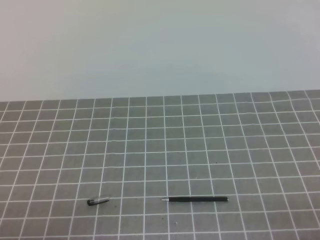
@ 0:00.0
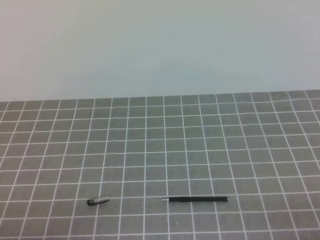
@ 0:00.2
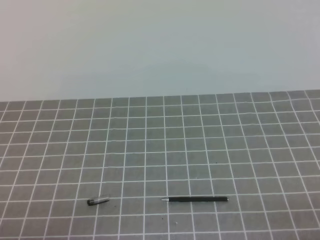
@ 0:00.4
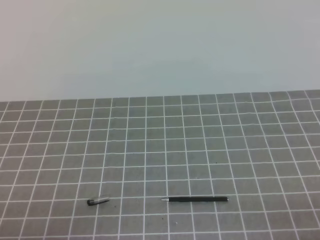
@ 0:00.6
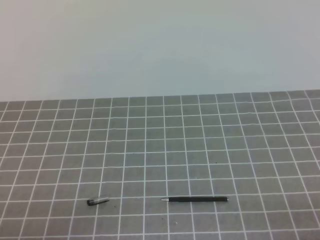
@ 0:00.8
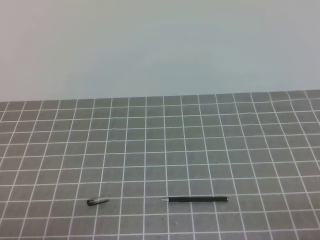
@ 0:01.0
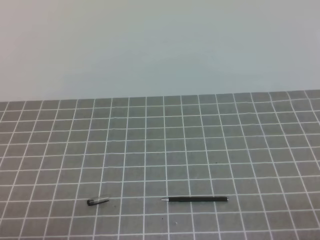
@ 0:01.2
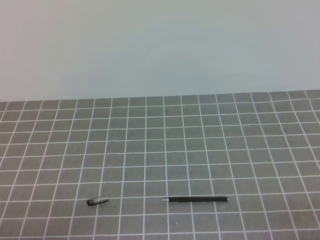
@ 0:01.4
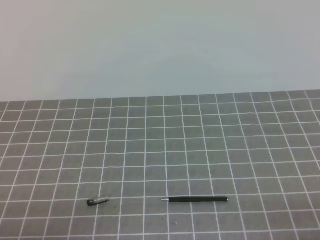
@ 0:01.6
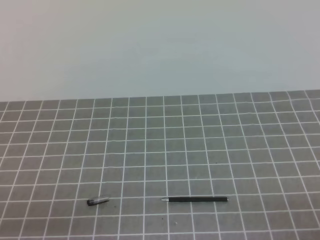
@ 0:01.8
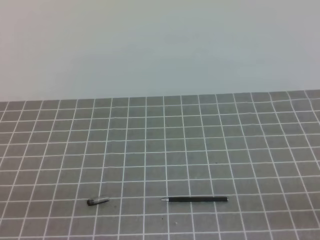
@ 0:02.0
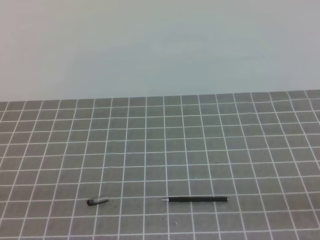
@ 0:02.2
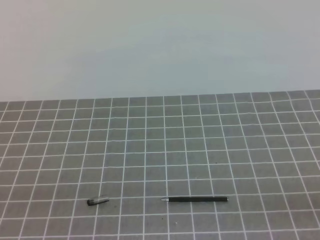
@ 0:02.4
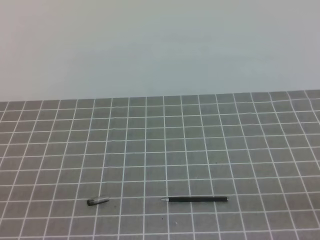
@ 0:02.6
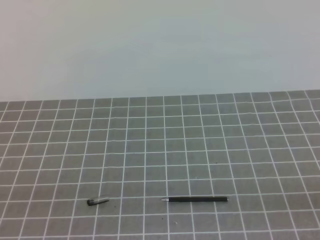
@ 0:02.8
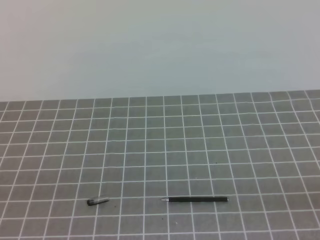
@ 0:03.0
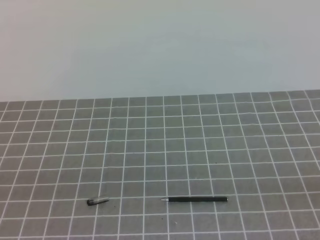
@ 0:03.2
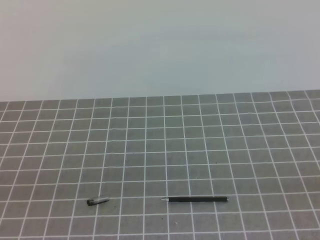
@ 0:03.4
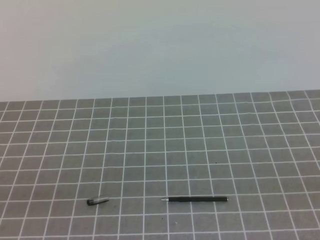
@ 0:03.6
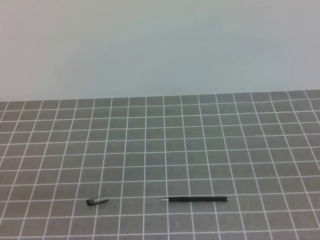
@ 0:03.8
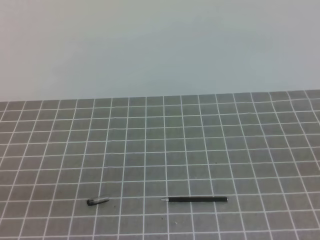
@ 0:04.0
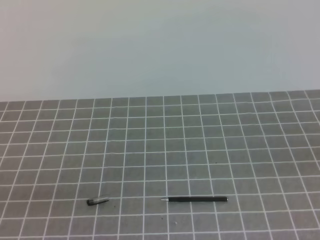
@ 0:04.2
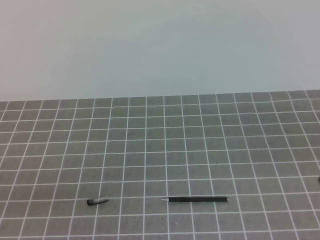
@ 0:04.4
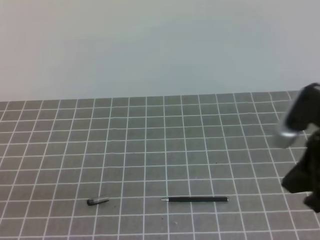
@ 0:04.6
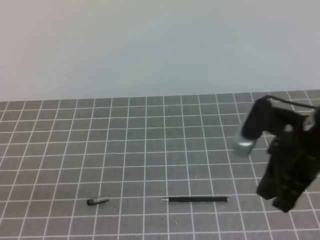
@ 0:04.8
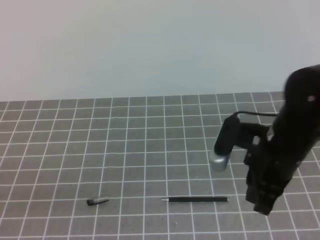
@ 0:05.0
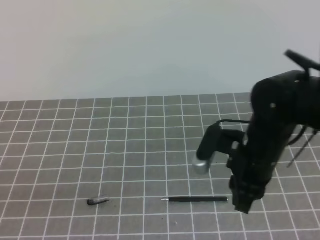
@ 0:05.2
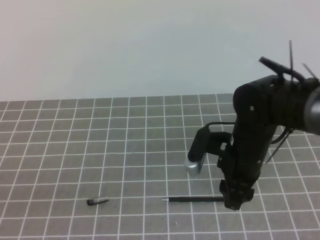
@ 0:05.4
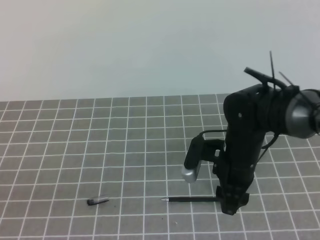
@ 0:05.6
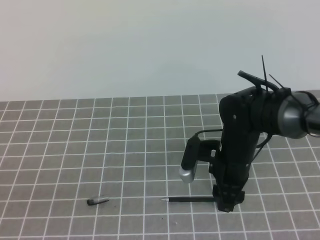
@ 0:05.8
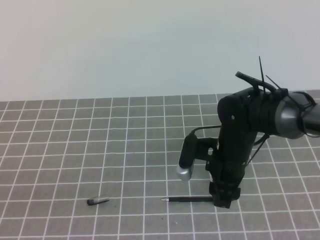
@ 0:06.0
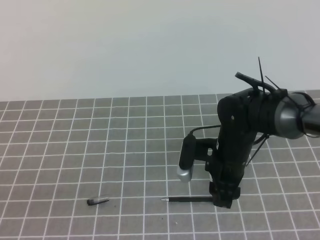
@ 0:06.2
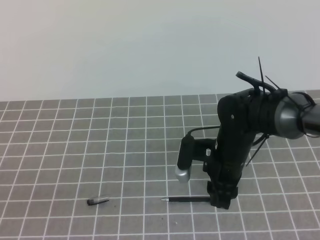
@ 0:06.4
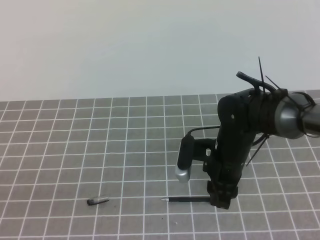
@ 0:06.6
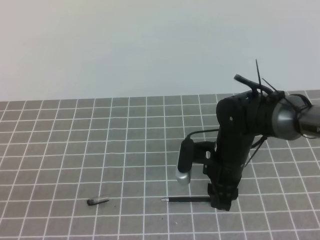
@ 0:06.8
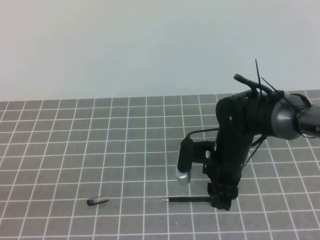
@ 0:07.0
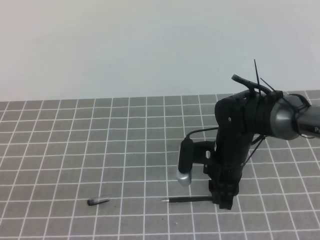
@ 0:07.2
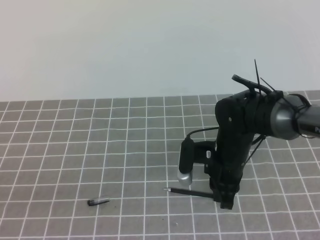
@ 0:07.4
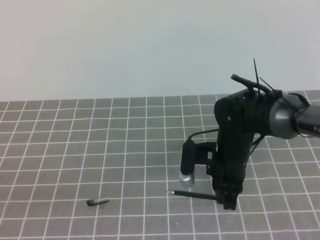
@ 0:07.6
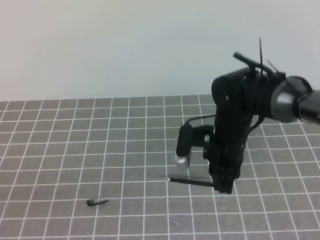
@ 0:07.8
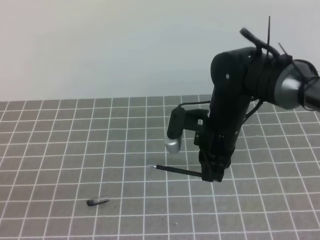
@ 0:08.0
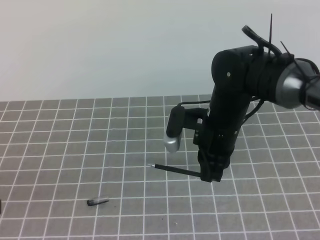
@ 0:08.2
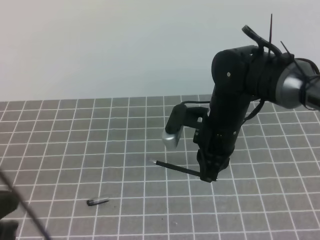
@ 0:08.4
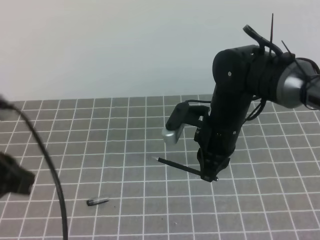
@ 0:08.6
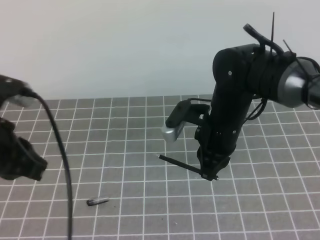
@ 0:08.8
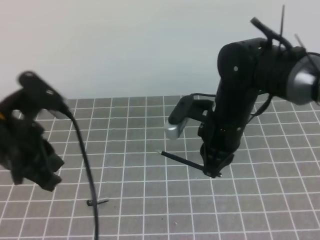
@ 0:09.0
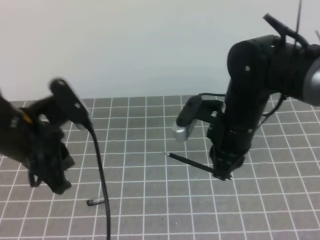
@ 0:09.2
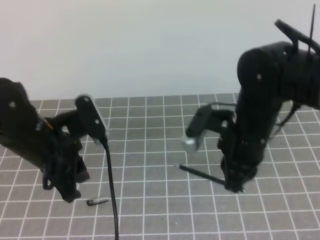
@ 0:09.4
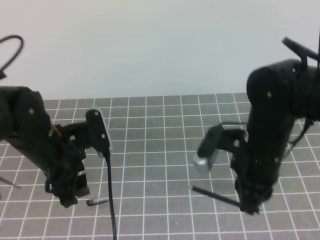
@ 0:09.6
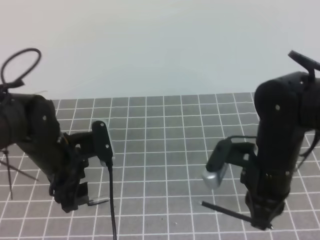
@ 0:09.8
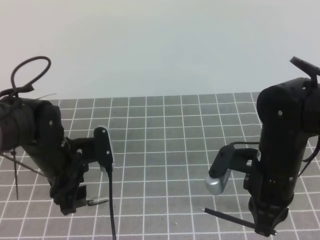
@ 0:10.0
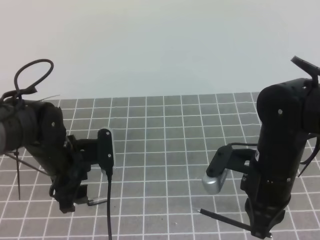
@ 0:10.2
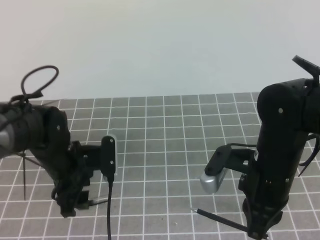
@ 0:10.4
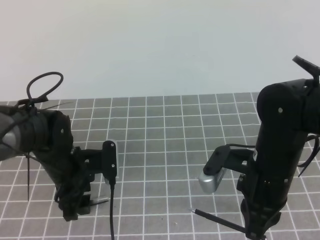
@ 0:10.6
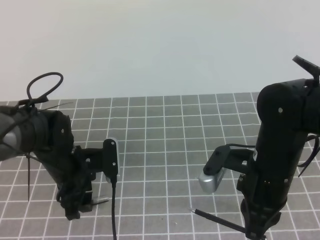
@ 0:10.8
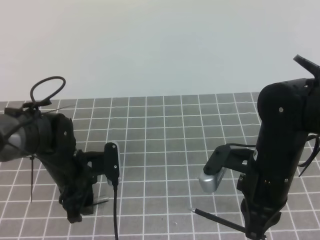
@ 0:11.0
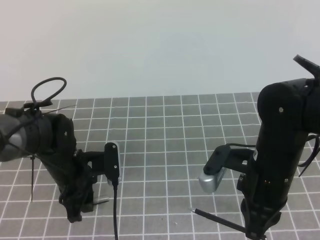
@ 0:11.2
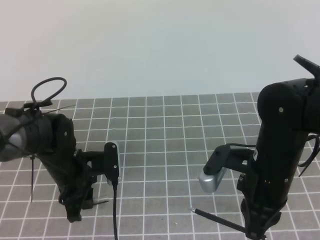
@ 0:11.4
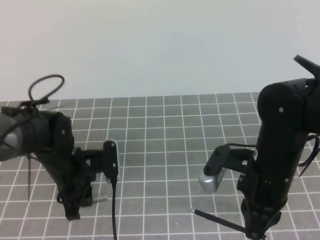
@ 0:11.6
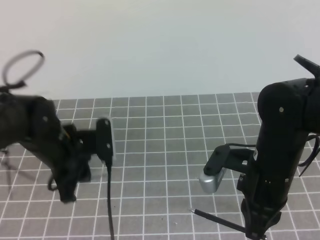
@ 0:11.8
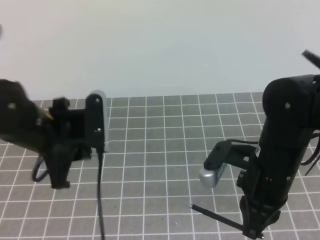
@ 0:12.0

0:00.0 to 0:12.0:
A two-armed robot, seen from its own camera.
Task of the whole recording: on the grey tablecloth, hold the pen cap in one hand and the pen in the other, then cover the pen cap.
0:04.4 to 0:06.0: The right gripper is displaced downward, forward and to the left by roughly 30 cm, and opens.
0:06.0 to 0:07.6: The right gripper closes up.
0:07.6 to 0:09.0: The left gripper goes about 20 cm forward. The right gripper moves upward, roughly 10 cm.
0:09.0 to 0:10.4: The right gripper heads backward, covering roughly 10 cm; the left gripper goes about 15 cm downward and forward, and opens up.
0:10.4 to 0:12.0: The left gripper goes approximately 10 cm upward, and closes its fingers.

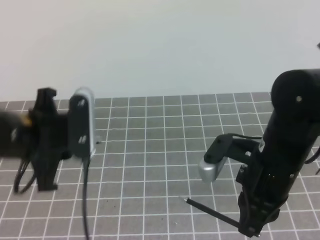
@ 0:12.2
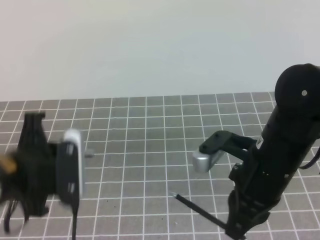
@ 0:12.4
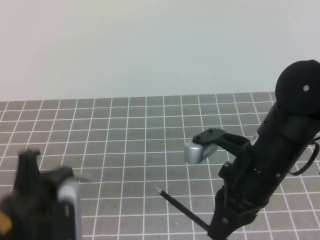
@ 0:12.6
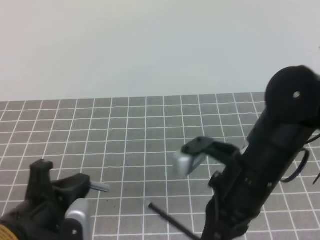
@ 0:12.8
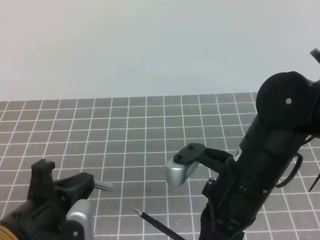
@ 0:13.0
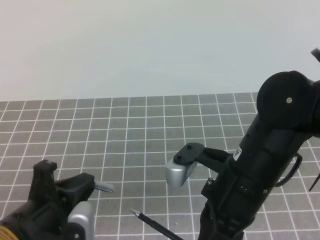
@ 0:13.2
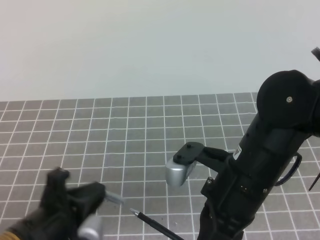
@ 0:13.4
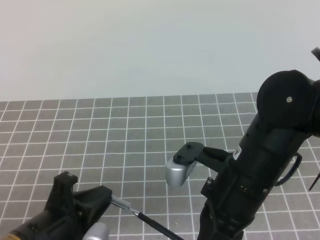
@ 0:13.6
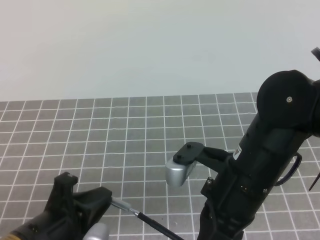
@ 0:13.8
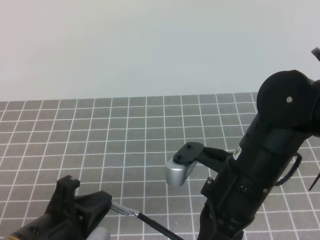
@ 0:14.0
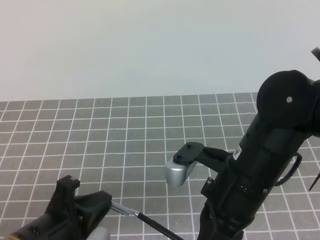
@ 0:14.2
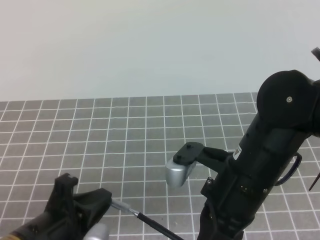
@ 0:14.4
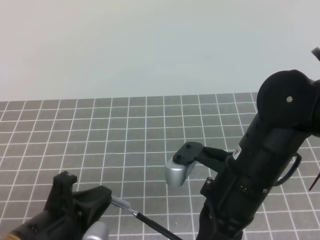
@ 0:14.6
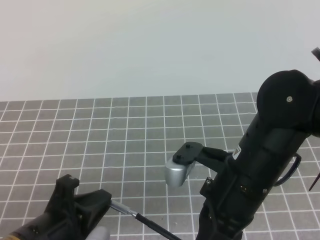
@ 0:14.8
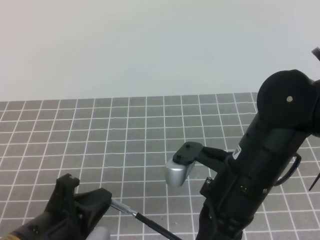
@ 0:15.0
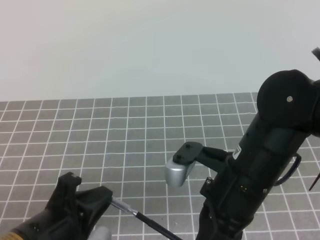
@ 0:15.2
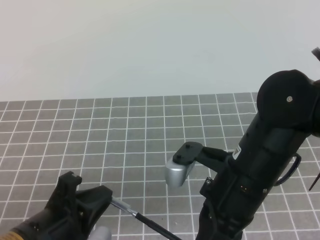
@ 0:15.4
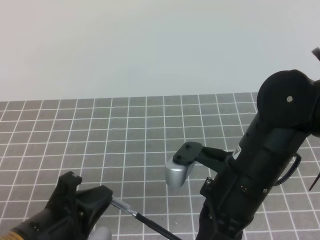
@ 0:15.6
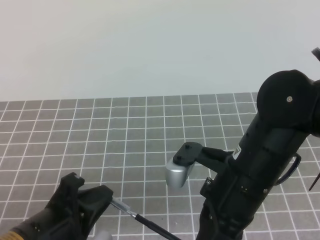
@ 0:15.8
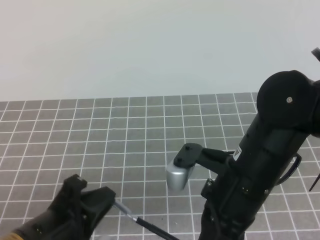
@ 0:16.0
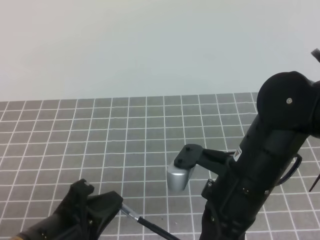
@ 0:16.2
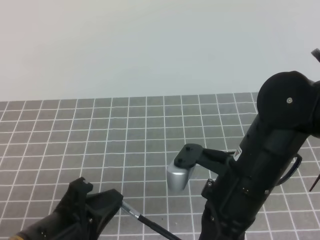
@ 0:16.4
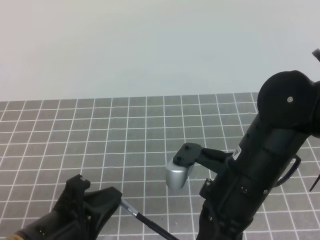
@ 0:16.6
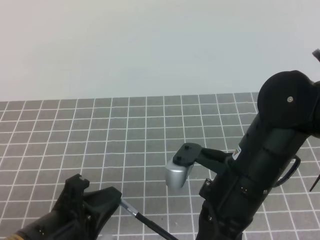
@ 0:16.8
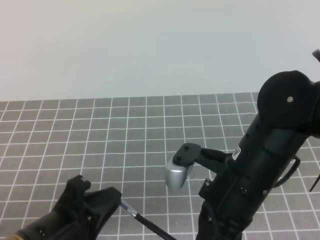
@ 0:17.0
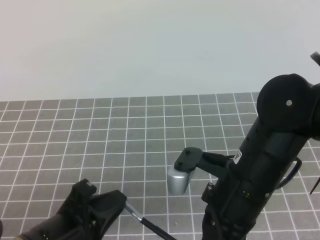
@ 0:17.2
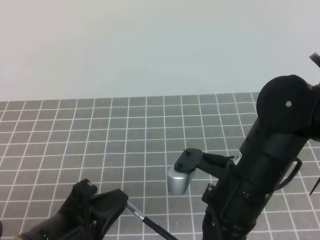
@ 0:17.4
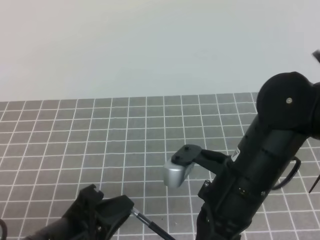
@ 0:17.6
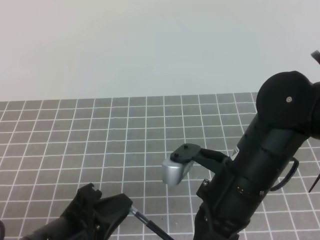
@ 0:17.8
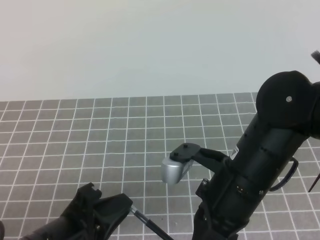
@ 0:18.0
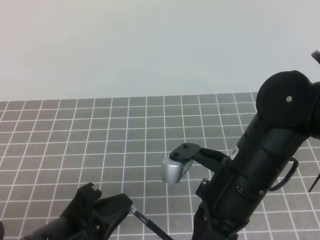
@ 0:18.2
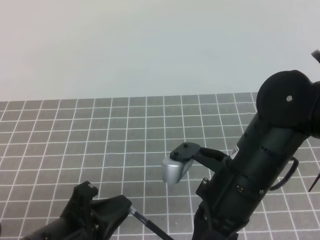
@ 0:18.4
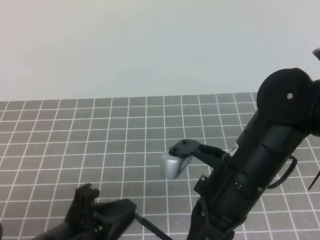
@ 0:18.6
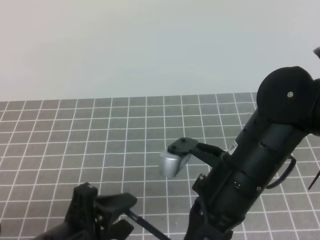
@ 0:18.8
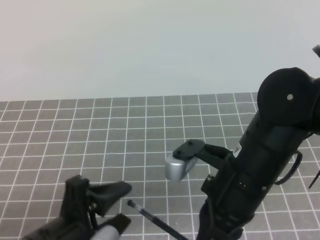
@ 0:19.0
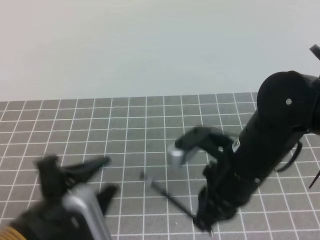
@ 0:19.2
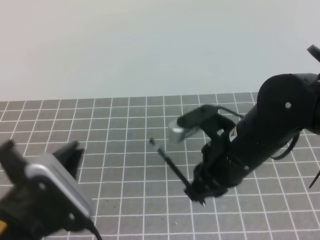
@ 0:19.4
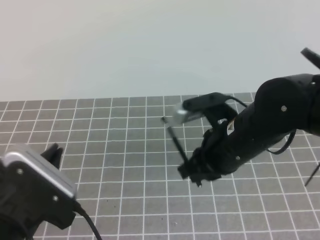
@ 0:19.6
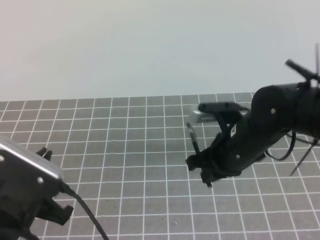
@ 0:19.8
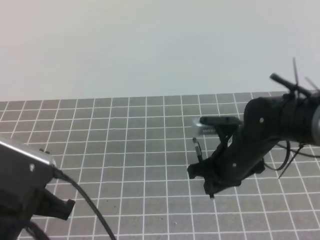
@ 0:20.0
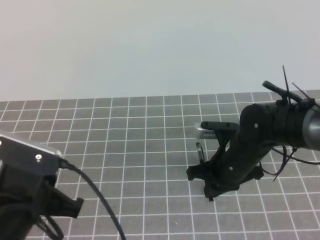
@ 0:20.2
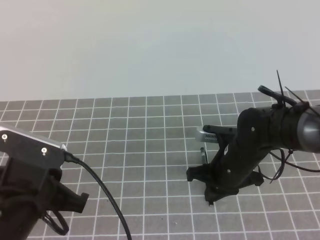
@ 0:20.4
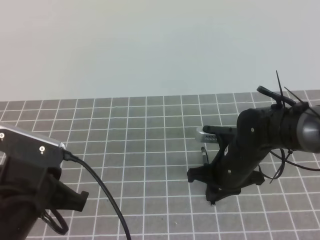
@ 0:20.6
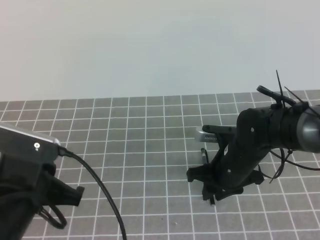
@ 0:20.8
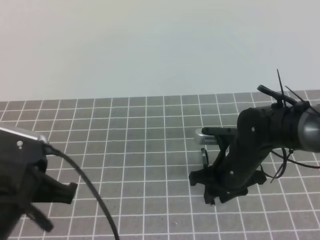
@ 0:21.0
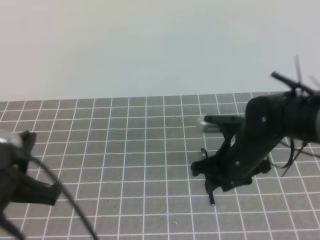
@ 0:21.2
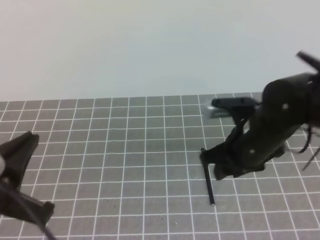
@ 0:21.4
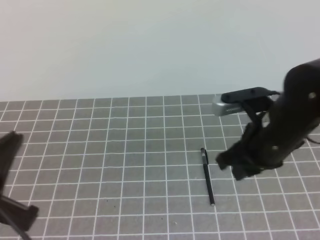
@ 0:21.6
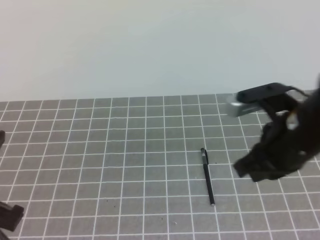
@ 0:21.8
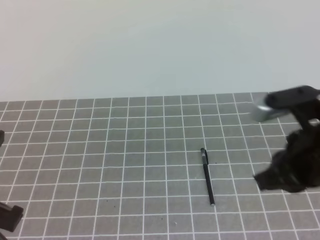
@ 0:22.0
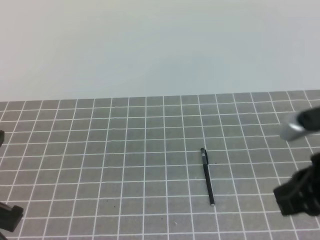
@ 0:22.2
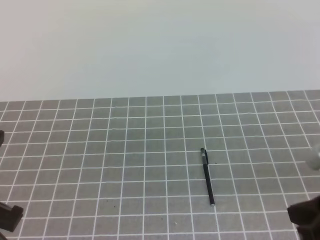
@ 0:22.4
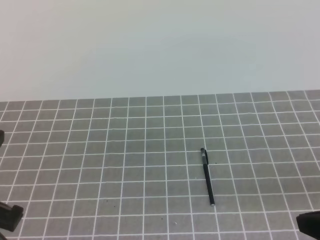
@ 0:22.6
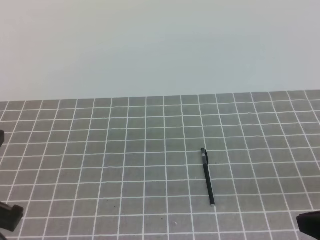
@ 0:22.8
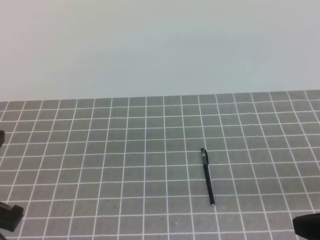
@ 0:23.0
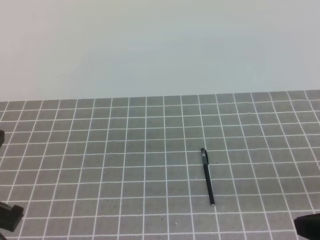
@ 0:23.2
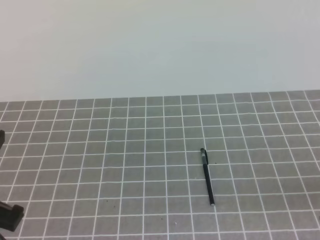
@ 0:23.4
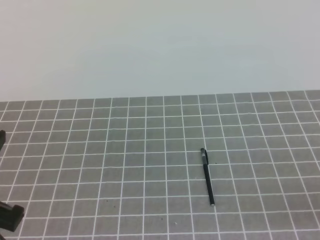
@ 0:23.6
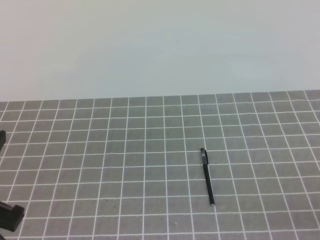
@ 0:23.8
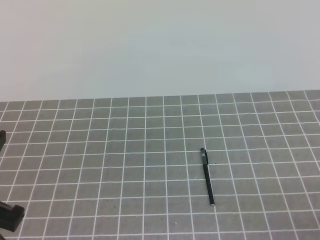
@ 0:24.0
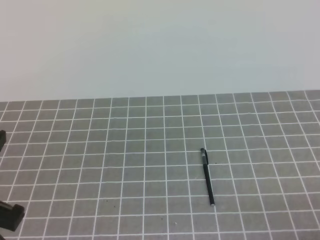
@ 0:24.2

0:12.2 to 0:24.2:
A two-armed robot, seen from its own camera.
Task of the whole recording: on the grey tablecloth, hold the pen cap in one hand and the pen in the other, then cover the pen cap.
0:12.2 to 0:13.8: The right gripper changes place by approximately 5 cm; the left gripper shifts approximately 10 cm backward and downward.
0:13.8 to 0:15.2: Both grippers stay put.
0:15.2 to 0:18.2: The grippers make only small movements.
0:18.2 to 0:19.8: The left gripper is displaced to the left by some 5 cm, and opens, then closes again. The right gripper goes roughly 10 cm forward.
0:19.8 to 0:21.2: The right gripper opens.
0:21.2 to 0:22.6: The right gripper heads backward, to the right and upward, covering roughly 25 cm, and closes. The left gripper moves roughly 5 cm.
0:22.6 to 0:24.2: The right gripper moves to the right, backward and downward, some 15 cm.
